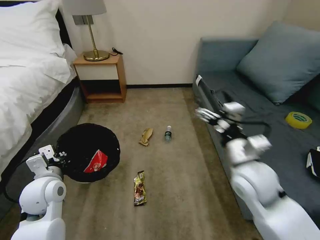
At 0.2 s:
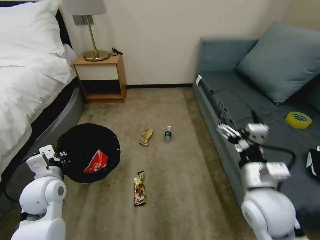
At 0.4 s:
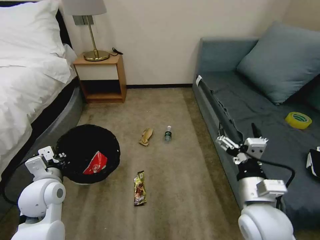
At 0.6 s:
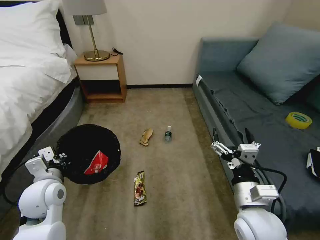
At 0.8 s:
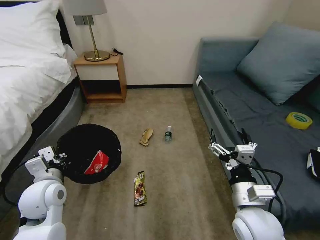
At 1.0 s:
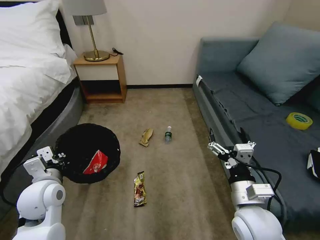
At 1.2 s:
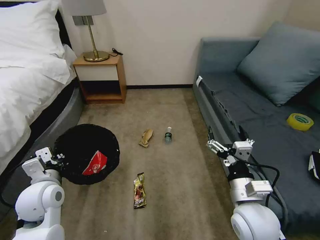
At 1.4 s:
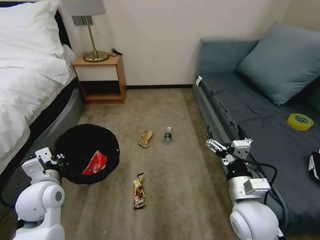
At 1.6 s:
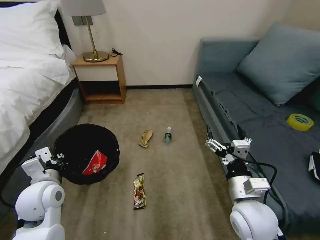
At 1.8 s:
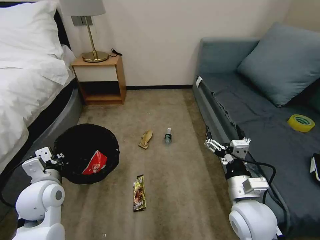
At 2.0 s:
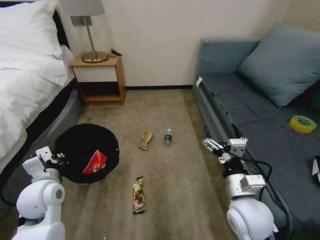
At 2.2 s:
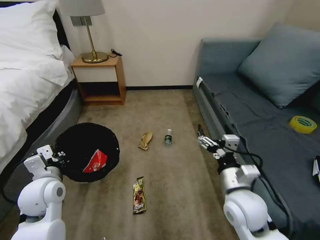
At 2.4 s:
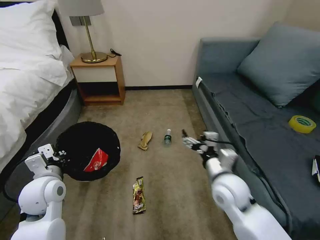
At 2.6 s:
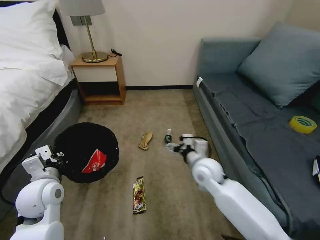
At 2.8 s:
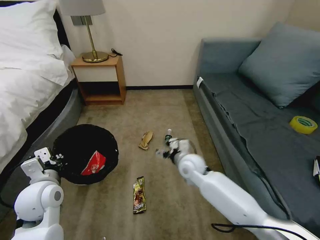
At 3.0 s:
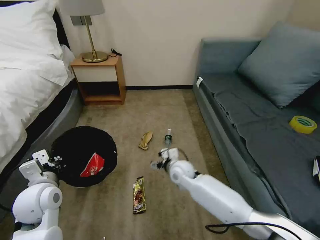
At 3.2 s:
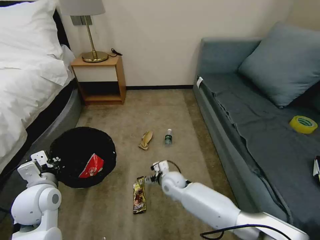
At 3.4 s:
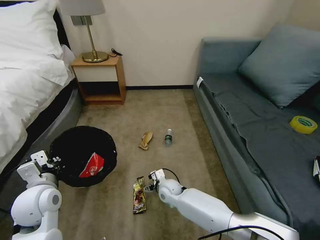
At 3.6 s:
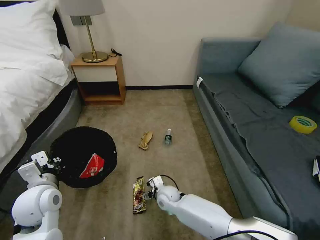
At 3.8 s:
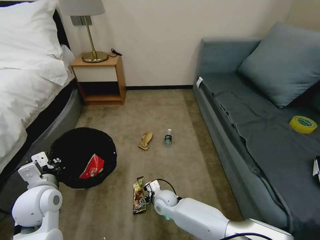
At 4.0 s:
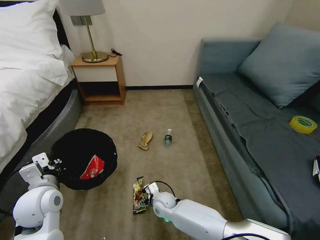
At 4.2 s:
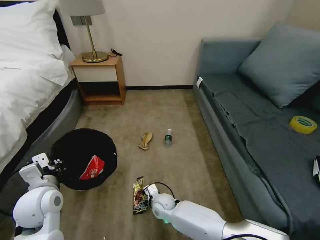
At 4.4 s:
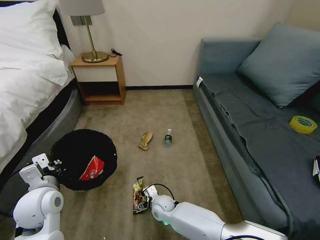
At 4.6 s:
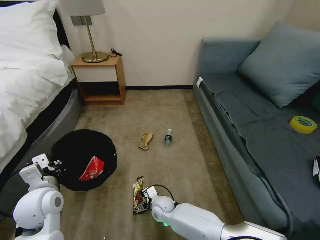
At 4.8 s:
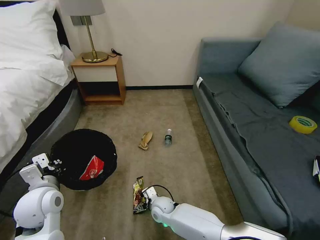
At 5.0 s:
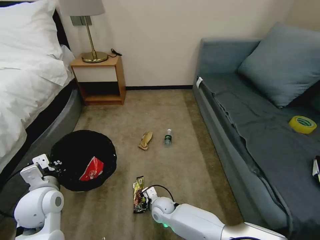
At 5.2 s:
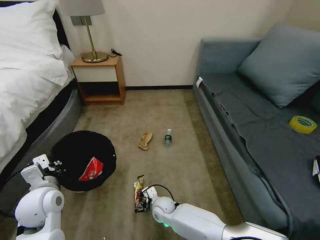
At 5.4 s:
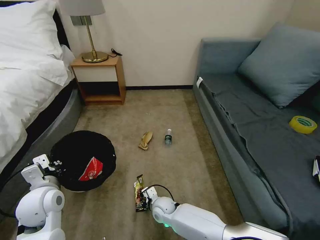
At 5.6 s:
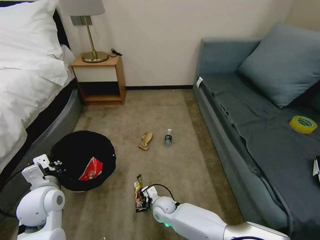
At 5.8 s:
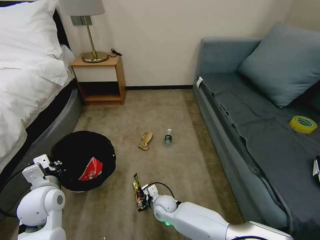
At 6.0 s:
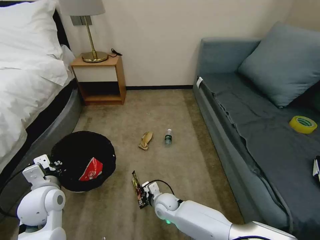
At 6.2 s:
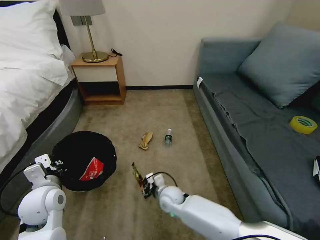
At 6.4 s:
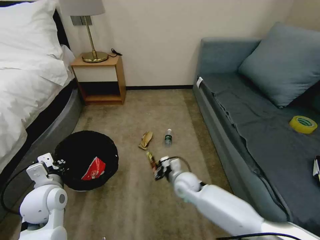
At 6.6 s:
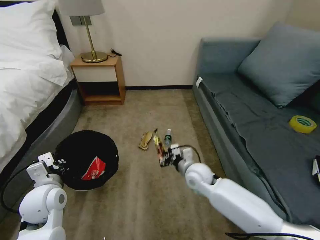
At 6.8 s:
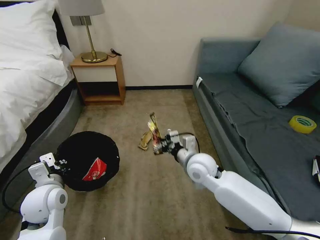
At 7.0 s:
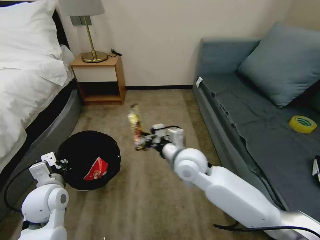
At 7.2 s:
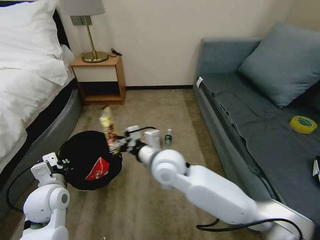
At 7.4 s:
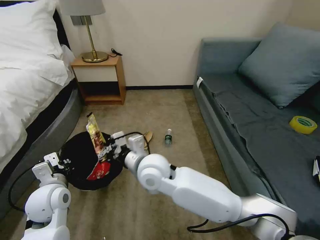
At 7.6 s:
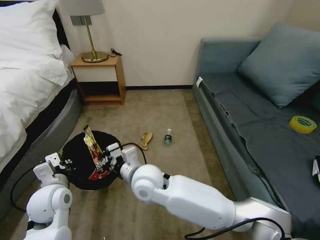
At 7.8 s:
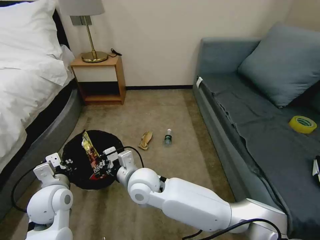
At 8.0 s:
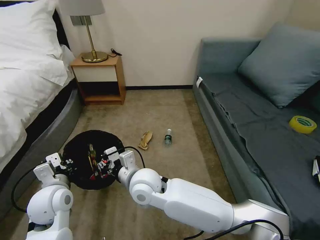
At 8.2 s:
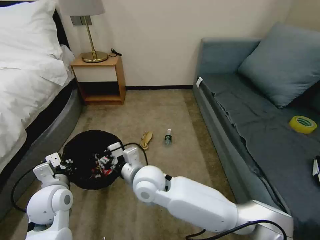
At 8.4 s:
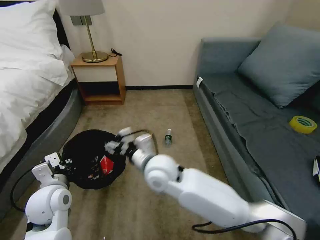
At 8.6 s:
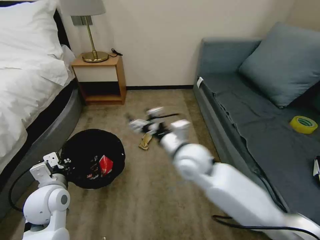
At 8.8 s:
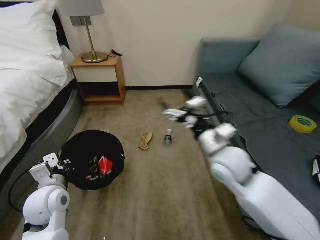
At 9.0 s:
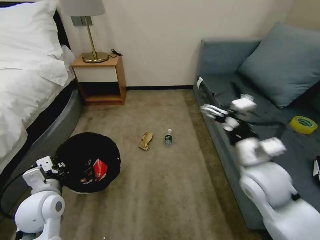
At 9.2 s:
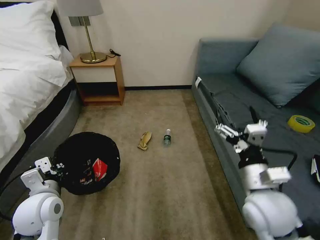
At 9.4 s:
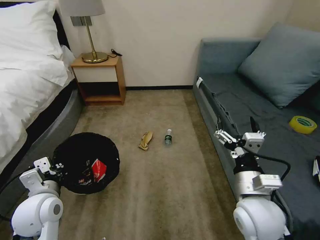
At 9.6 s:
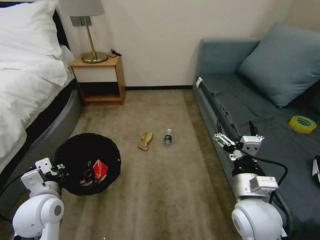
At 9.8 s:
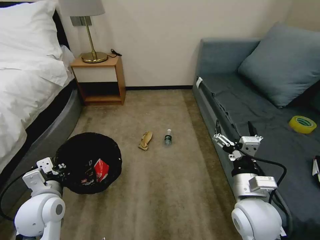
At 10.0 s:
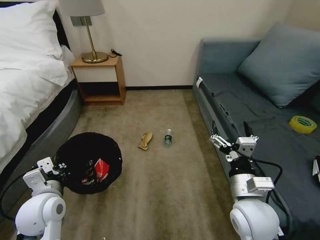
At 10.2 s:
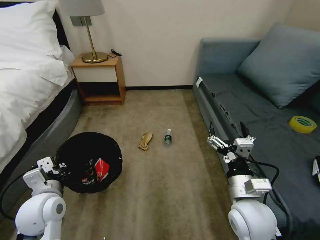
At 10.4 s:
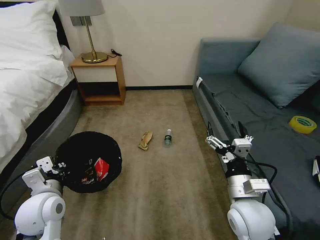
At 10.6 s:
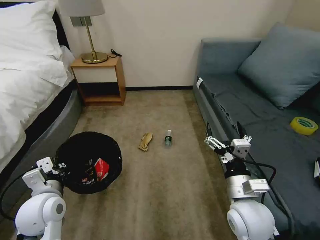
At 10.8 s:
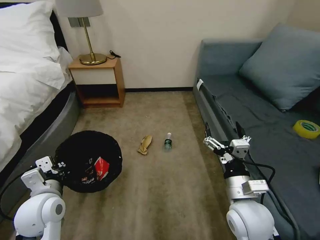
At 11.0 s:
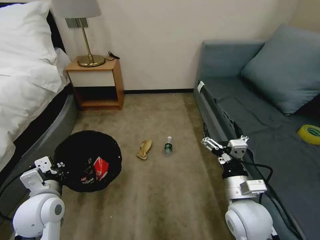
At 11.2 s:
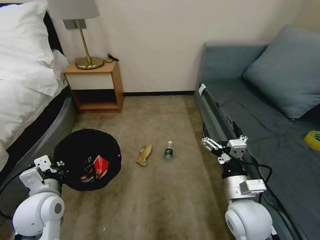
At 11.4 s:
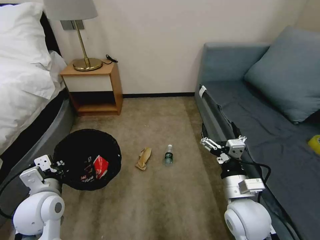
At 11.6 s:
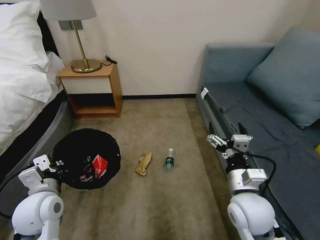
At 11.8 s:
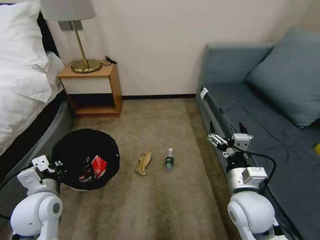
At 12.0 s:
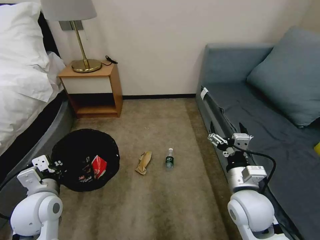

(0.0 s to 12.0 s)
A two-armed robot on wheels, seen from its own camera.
Task of the whole recording: Pick up the trash bin, then pick up the garbage on the floor and place it into the trash bin.
0.0 s - 1.6 s: The right gripper goes approximately 10 cm backward and downward.
1.6 s - 3.0 s: The right gripper moves forward, to the left and downward, roughly 25 cm.
3.0 s - 4.4 s: The right gripper travels downward, to the left and backward by approximately 20 cm.
4.4 s - 6.0 s: The right gripper closes its fingers.
6.0 s - 7.6 s: The right gripper moves upward, approximately 25 cm.
7.6 s - 9.0 s: The right gripper goes approximately 30 cm to the right, and opens its fingers.
9.0 s - 10.4 s: The right gripper goes about 10 cm downward and backward.

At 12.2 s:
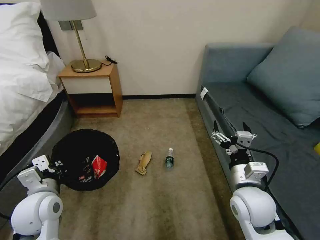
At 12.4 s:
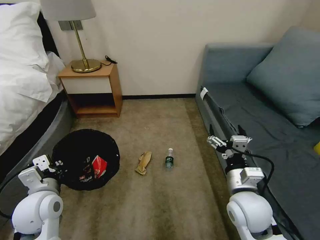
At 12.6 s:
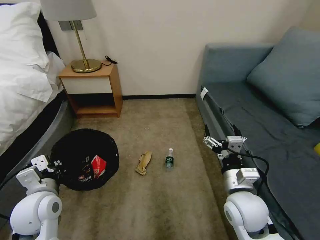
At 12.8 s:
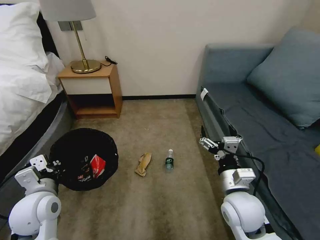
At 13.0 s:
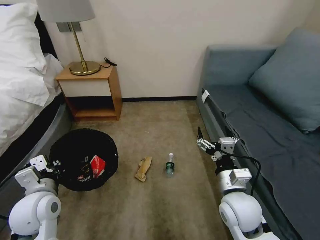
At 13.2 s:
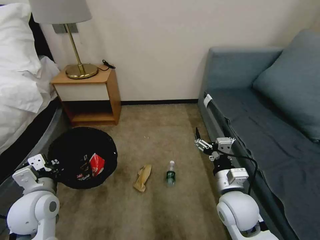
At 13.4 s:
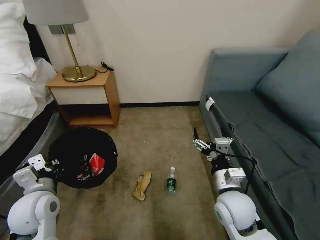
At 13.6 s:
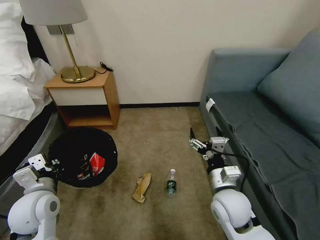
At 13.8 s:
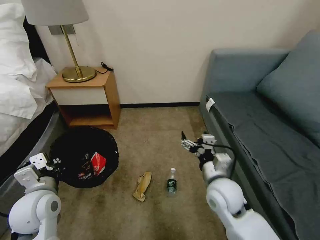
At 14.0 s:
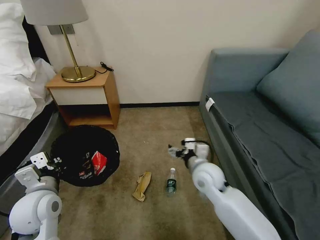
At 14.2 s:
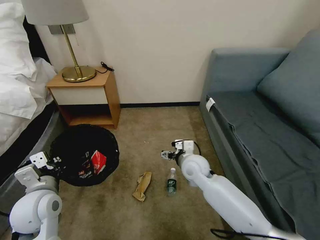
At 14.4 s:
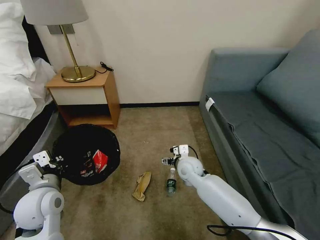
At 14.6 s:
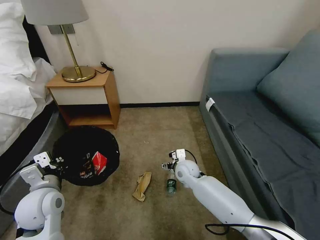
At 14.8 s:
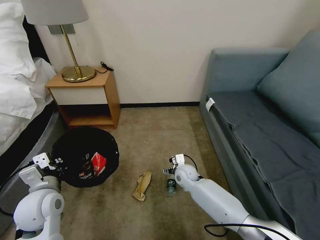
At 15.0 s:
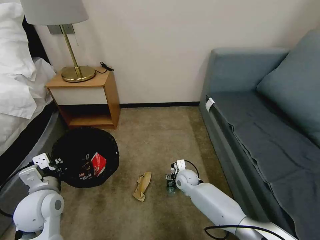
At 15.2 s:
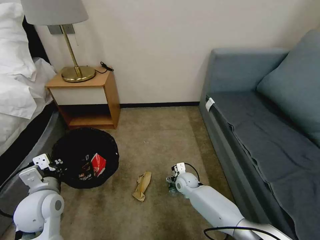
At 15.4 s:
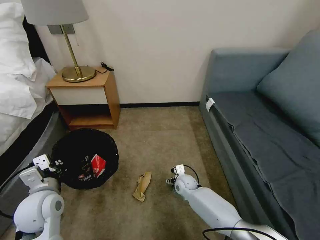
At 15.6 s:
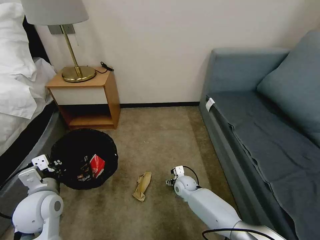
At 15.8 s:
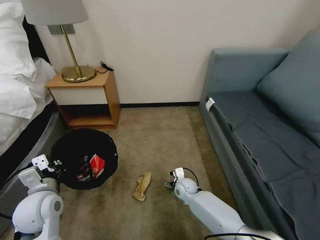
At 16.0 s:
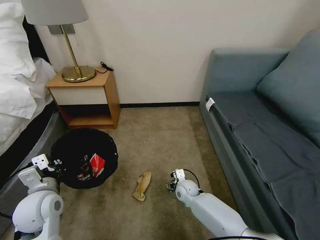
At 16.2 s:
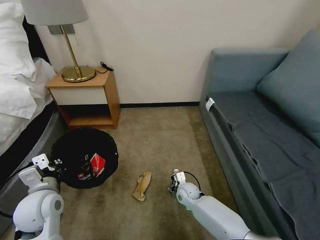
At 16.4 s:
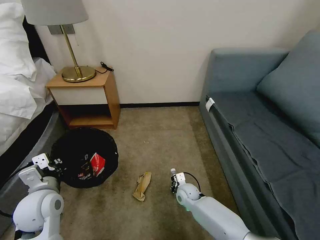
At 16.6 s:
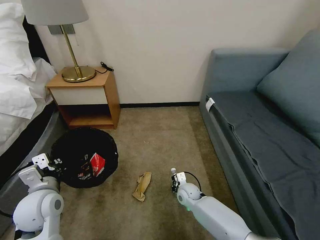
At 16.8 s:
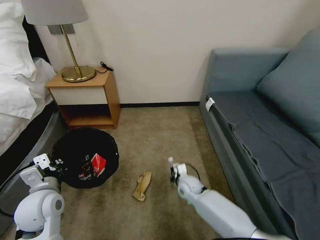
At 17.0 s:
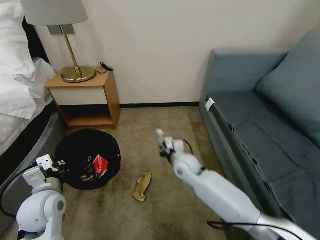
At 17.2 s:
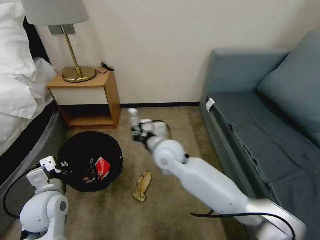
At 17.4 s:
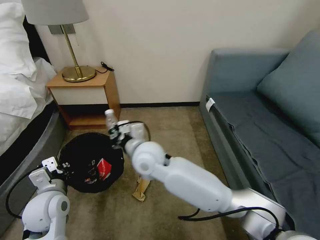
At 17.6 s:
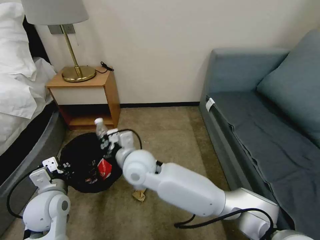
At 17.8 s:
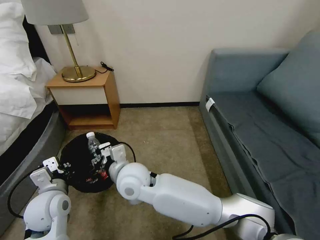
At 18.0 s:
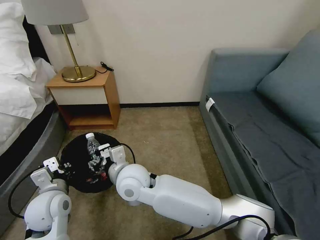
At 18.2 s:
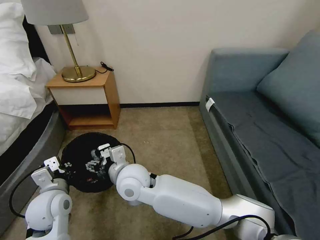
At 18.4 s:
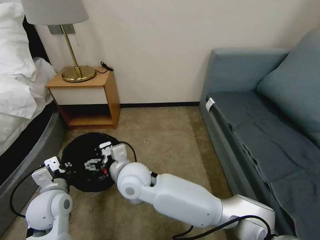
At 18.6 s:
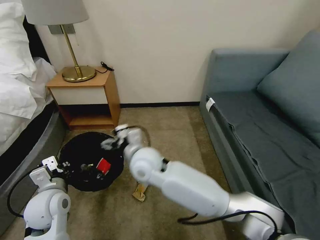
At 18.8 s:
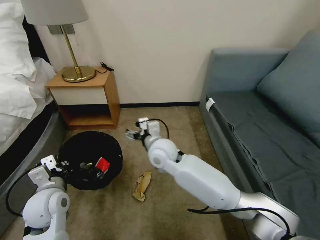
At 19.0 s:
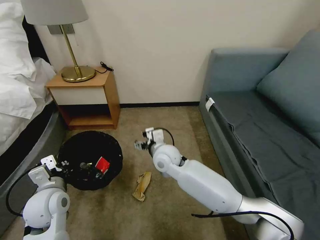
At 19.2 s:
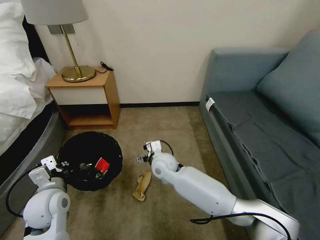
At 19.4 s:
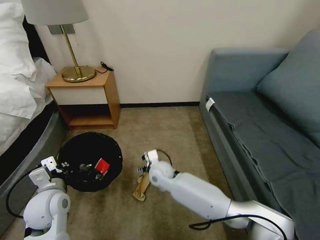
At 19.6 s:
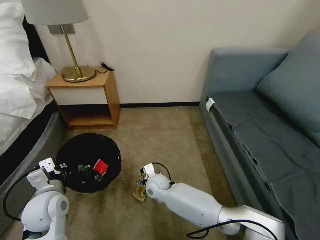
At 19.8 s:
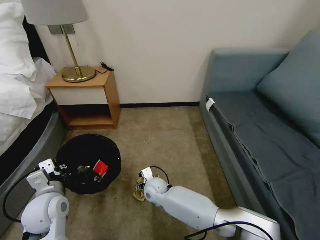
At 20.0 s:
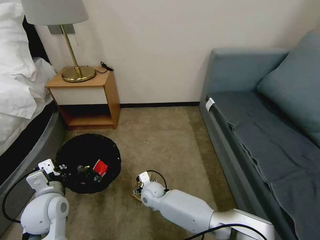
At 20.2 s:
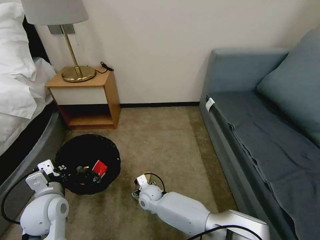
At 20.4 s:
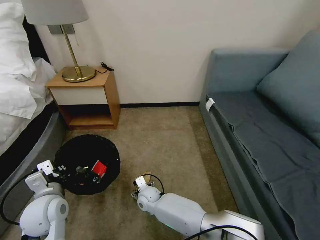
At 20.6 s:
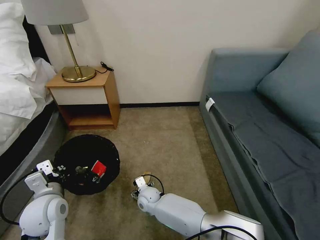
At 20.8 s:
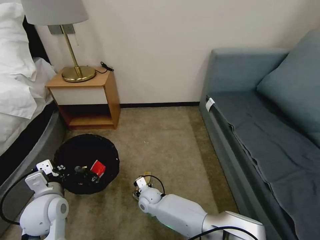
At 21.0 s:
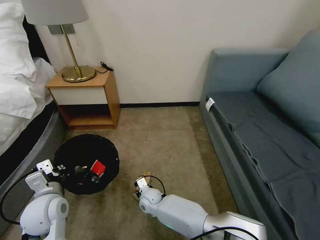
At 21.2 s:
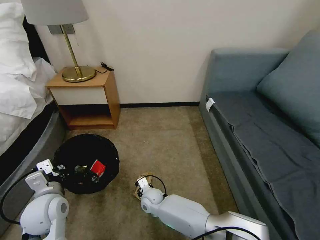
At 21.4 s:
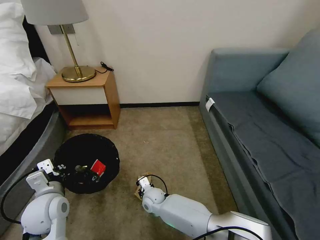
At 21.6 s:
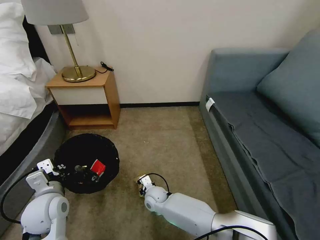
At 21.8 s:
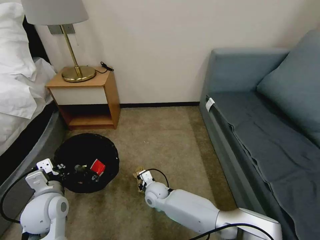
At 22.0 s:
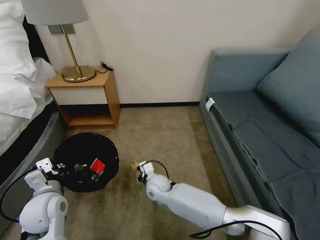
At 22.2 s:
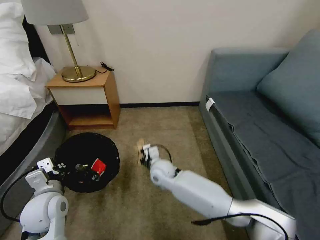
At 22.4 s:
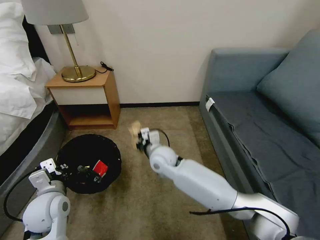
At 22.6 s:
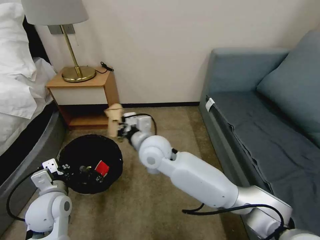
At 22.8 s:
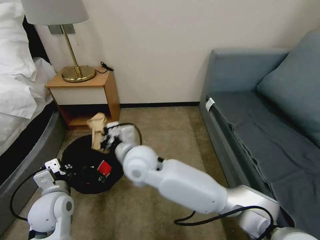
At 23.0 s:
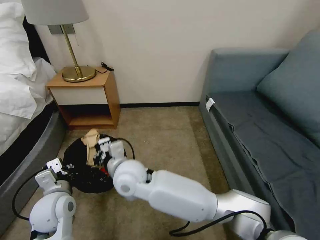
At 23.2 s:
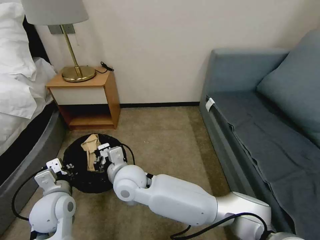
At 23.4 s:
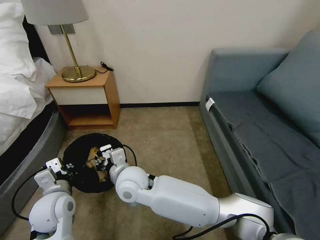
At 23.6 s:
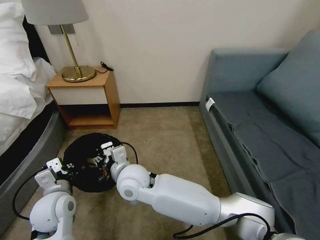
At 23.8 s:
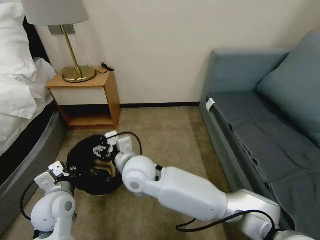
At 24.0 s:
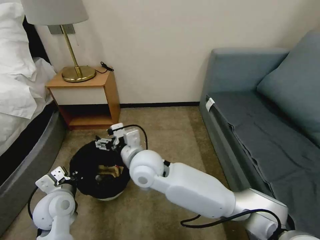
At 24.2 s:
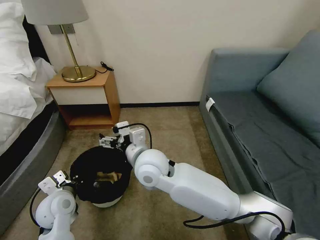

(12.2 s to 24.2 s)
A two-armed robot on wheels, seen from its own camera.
Task of the whole recording: Pick up the trash bin, then pick up the garbage on the floor and place it into the trash bin.
12.2 s - 13.8 s: The right gripper travels to the left by approximately 5 cm.
13.8 s - 15.2 s: The right gripper heads downward and forward, covering some 25 cm.
15.2 s - 16.6 s: The right gripper closes up.
16.6 s - 18.2 s: The right gripper moves upward and to the left, approximately 35 cm, and opens.
18.2 s - 19.8 s: The right gripper moves downward, roughly 20 cm.
19.8 s - 21.2 s: The right gripper moves some 5 cm, and closes.
21.2 s - 22.6 s: The right gripper travels upward by about 30 cm, and closes its fingers.
22.6 s - 24.2 s: The right gripper moves some 10 cm to the left and comes back, and opens its fingers.
